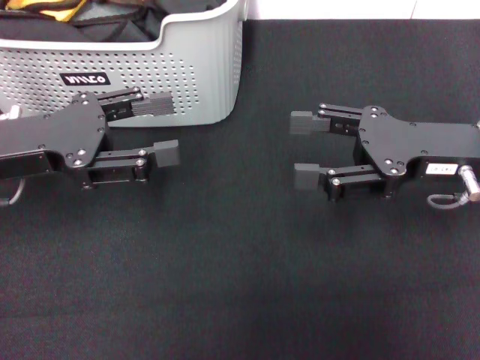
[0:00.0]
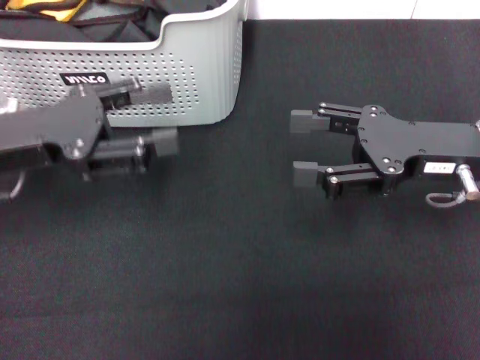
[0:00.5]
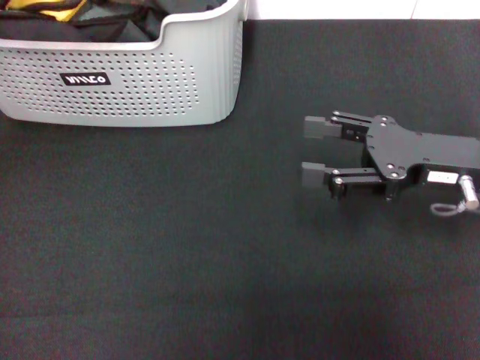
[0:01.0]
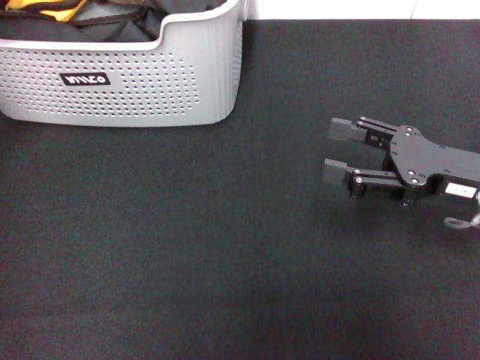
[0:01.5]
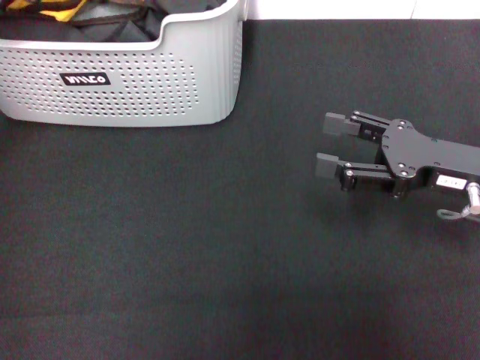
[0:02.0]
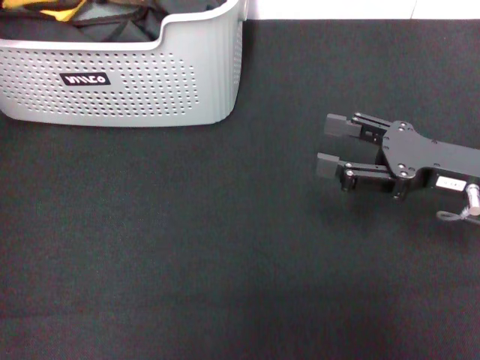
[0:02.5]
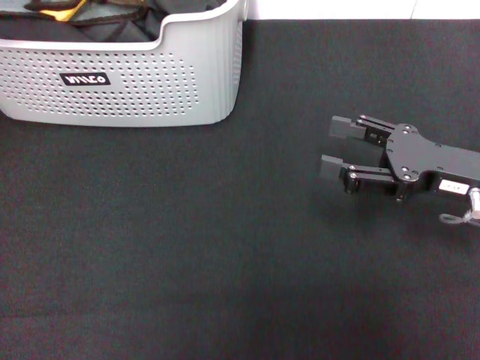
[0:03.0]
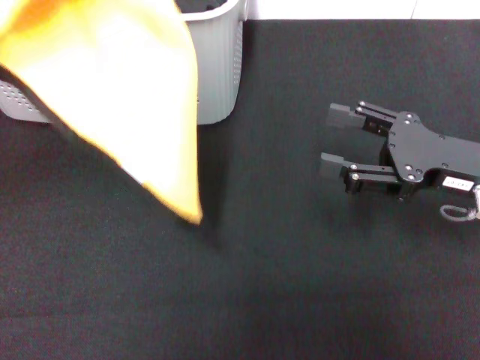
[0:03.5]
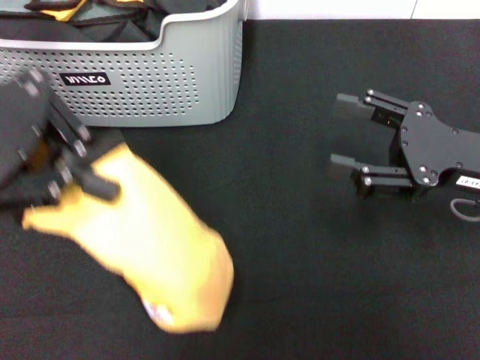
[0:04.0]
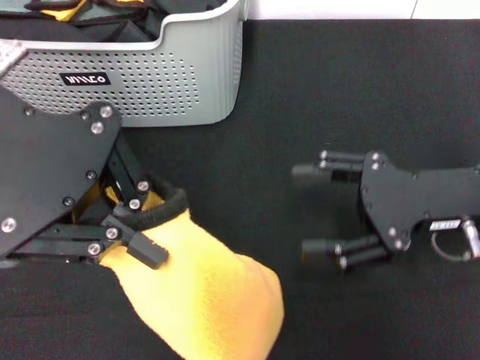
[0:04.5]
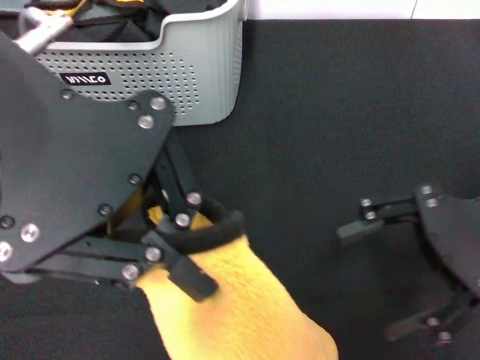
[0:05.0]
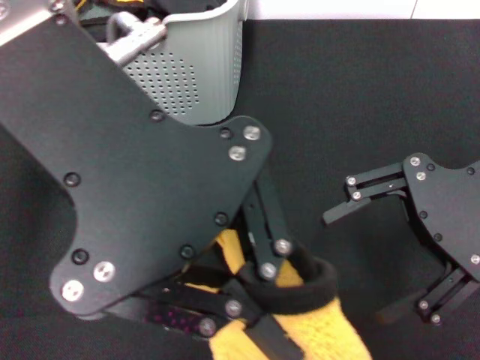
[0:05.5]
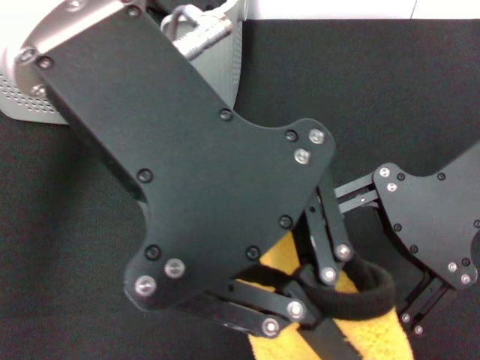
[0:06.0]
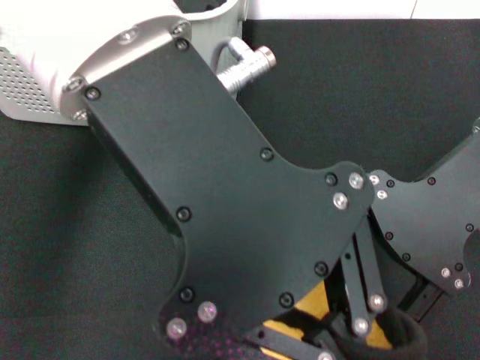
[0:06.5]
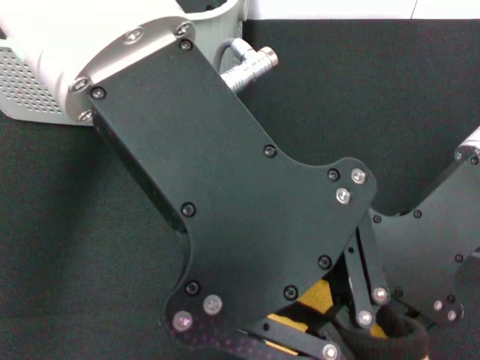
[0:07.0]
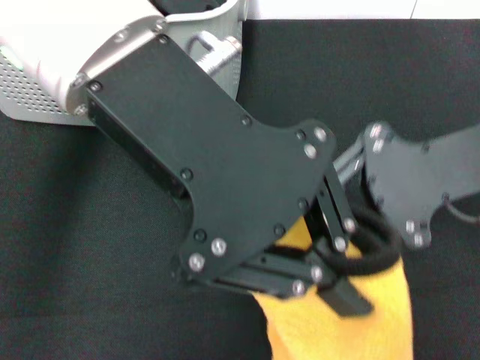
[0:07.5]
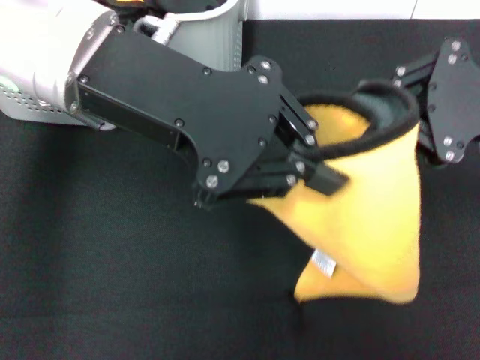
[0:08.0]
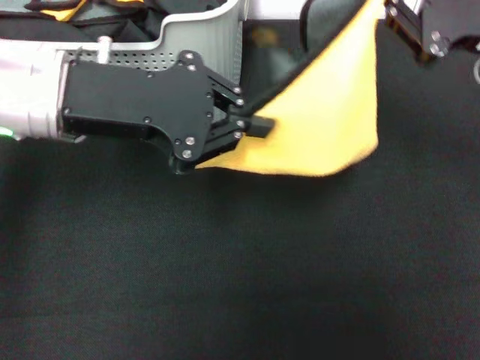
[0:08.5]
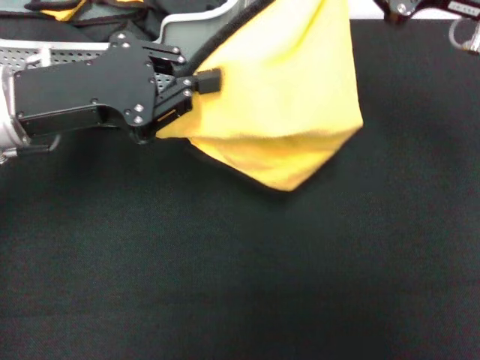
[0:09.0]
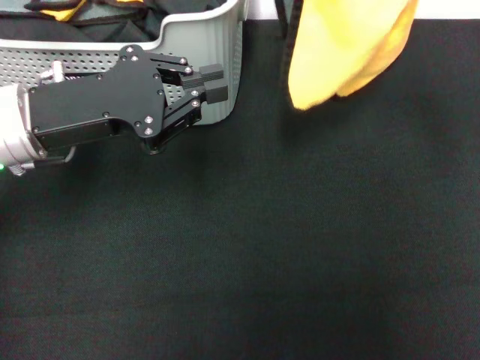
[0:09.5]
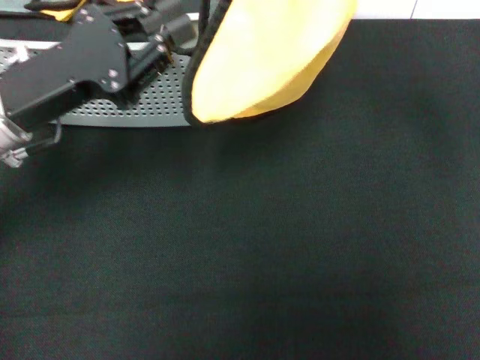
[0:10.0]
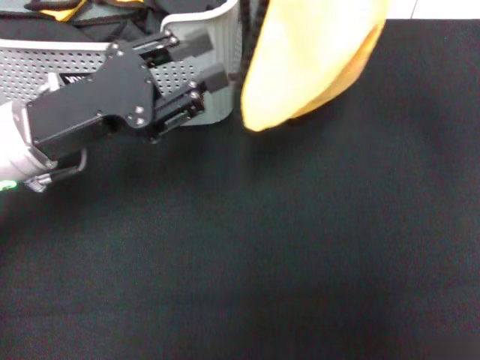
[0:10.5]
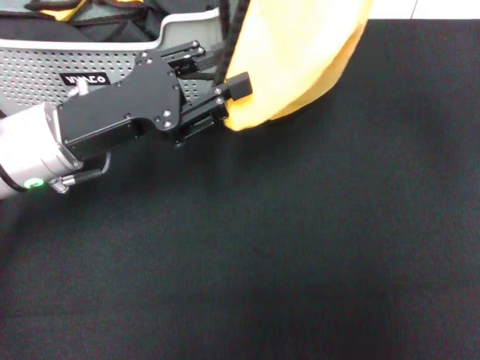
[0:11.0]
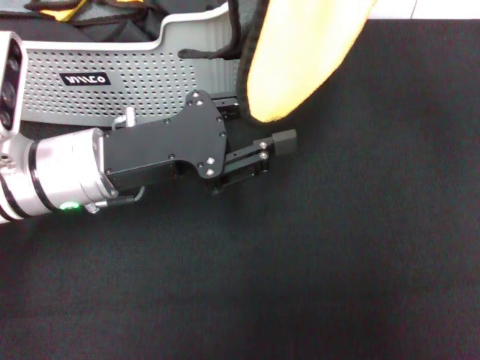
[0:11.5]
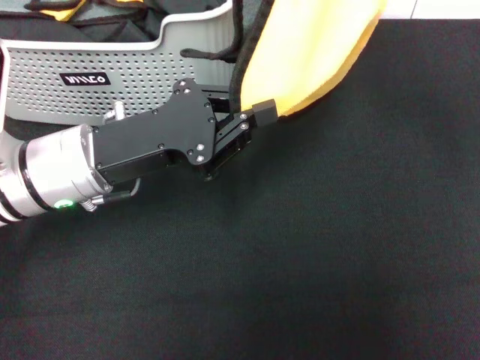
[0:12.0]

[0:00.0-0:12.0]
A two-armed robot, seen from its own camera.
Task of the whole recording: pick up the towel from the storage box and lay it flat on the black tablecloth.
Step, 0:00.0 to 0:02.5: Pick up a towel with the left gripper.
Step, 0:03.0 to 0:07.5: Spread the towel flat with the left gripper.
0:00.0 to 0:02.0: The left gripper is displaced forward and upward by roughly 15 cm.
0:02.0 to 0:04.0: The left gripper travels backward by some 10 cm, and closes.
0:04.0 to 0:06.0: The left gripper heads to the right, covering roughly 15 cm, while the right gripper heads upward, covering about 10 cm.
0:06.0 to 0:08.0: The left gripper is displaced downward by approximately 5 cm. The right gripper shifts about 5 cm to the right, and closes.
0:08.0 to 0:10.0: The right gripper goes roughly 10 cm upward and forward, while the left gripper goes approximately 15 cm downward and to the left.
0:10.0 to 0:12.0: The left gripper goes roughly 5 cm to the right.

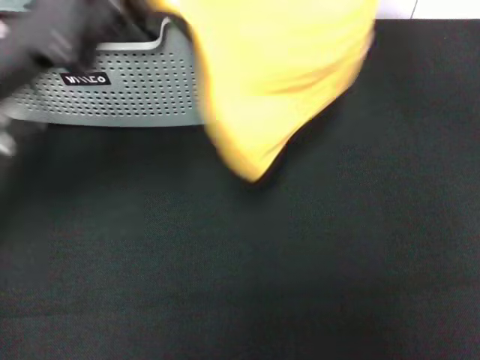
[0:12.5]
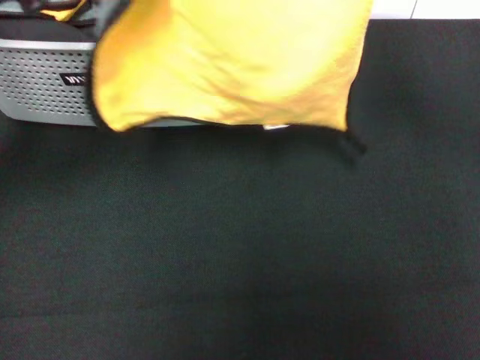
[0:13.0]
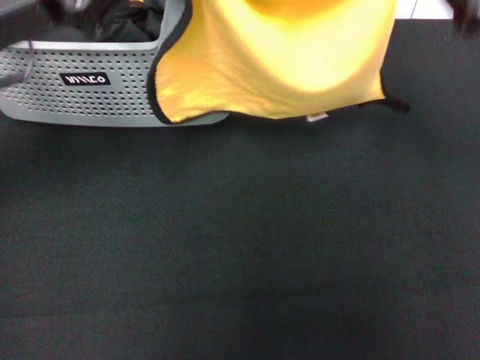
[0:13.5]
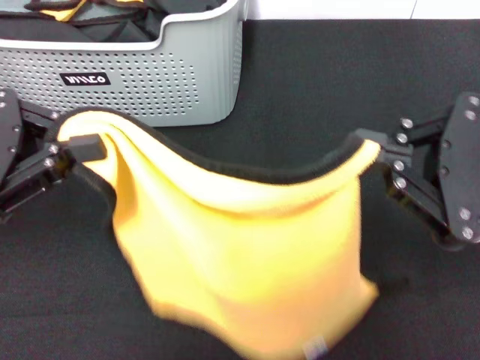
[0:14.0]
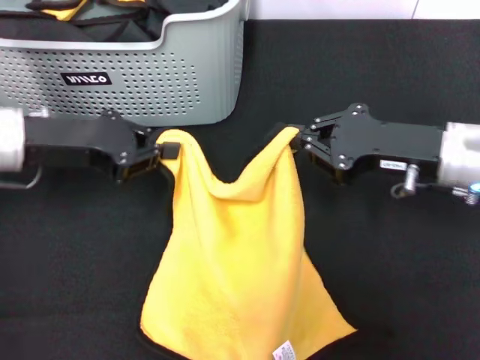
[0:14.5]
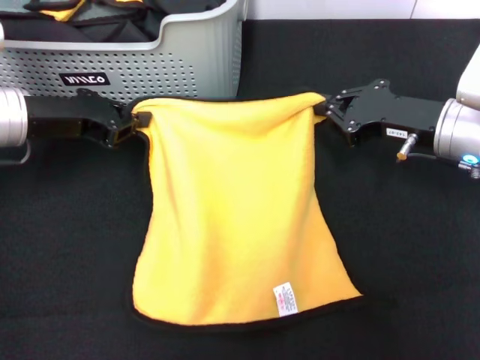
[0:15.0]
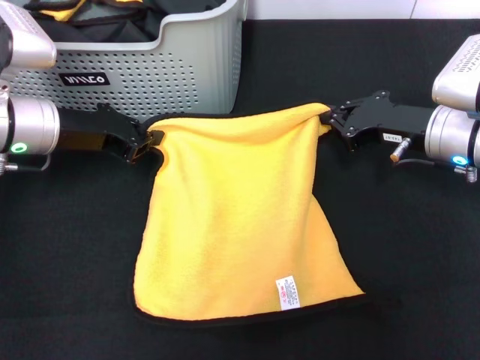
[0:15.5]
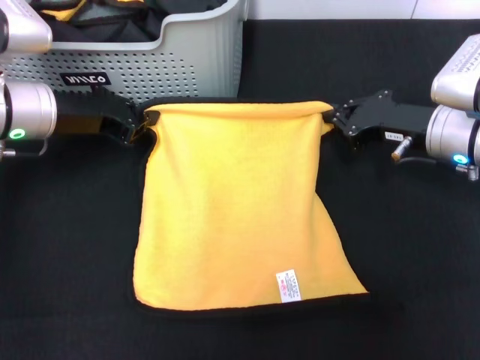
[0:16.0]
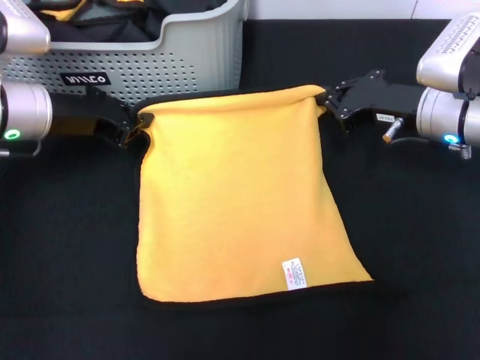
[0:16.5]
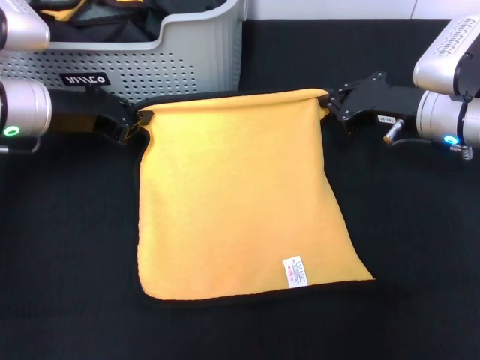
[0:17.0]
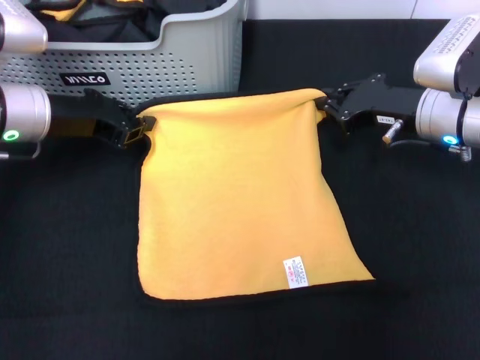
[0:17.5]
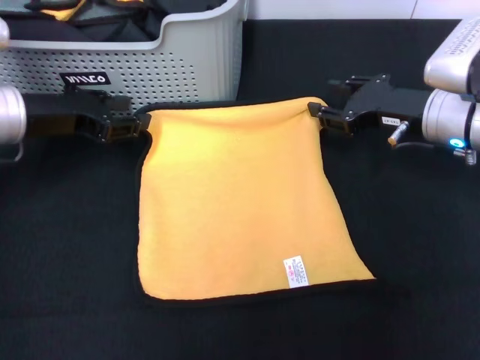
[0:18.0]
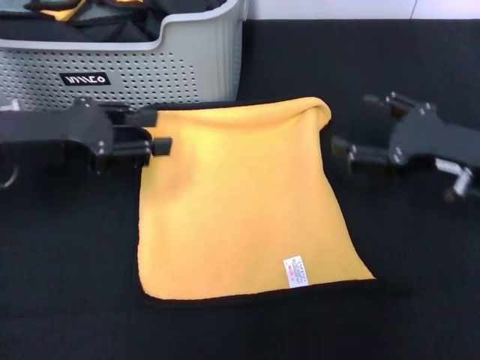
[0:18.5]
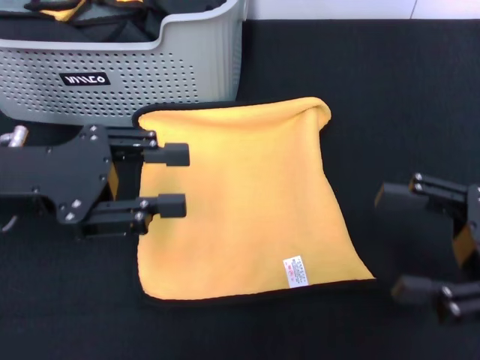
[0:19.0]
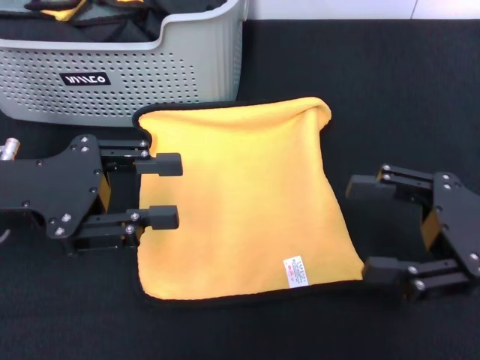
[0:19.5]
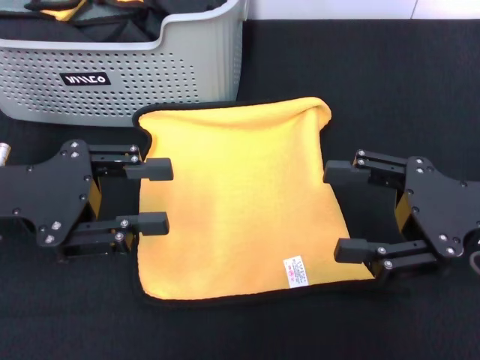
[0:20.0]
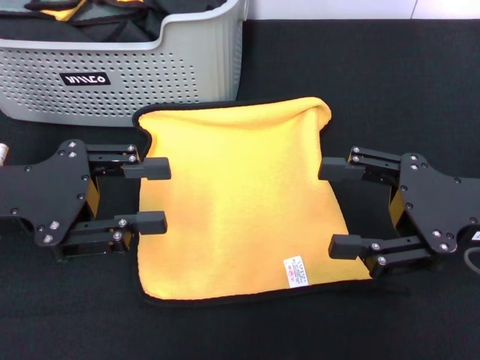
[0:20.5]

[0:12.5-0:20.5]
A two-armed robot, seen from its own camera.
Task of the whole recording: pick up the towel from the storage box and lay it flat on the black tablecloth.
Step, 0:12.5 to 0:18.0: Spread the towel flat with the right gripper.
0:12.5 to 0:14.5: The right gripper heads downward, covering roughly 15 cm, while the left gripper changes place by some 5 cm.
0:14.5 to 0:16.5: The right gripper is displaced forward by approximately 5 cm.
0:16.5 to 0:18.5: The right gripper is displaced backward and to the right by roughly 10 cm, and opens up, while the left gripper travels backward by approximately 5 cm, and opens.
0:18.5 to 0:20.5: The left gripper goes some 5 cm backward.

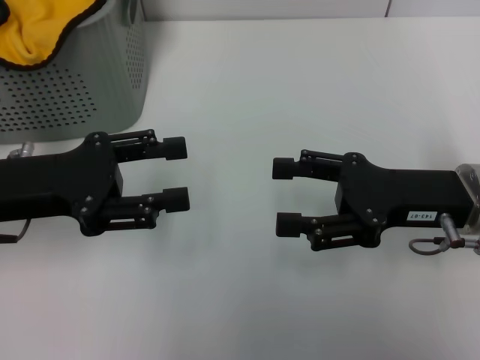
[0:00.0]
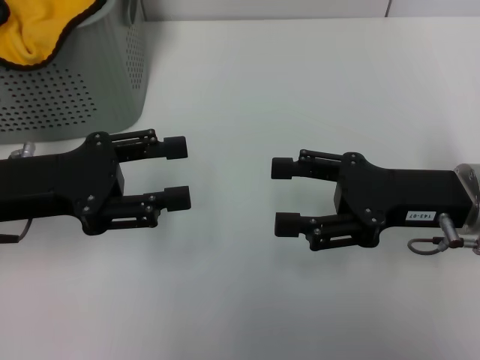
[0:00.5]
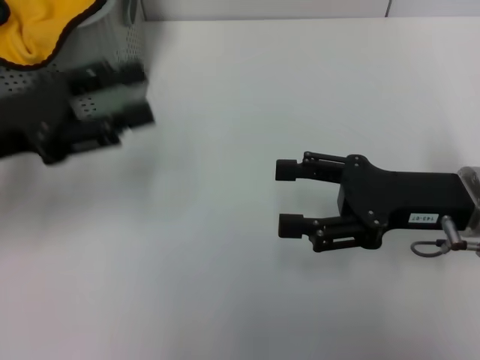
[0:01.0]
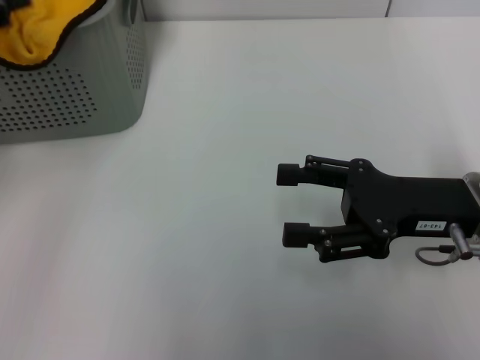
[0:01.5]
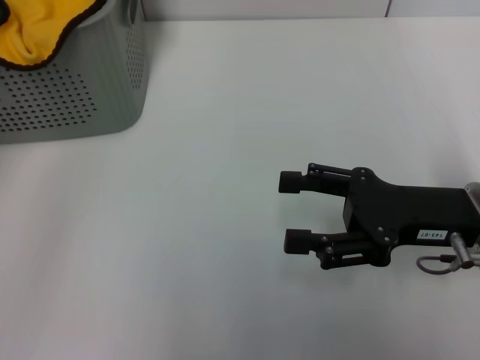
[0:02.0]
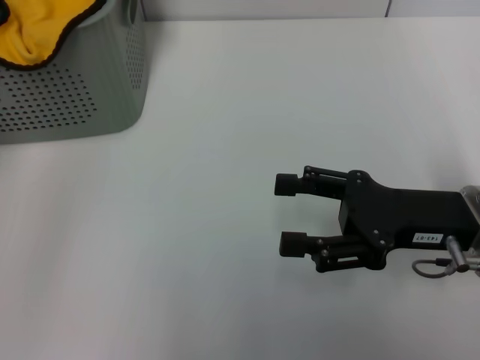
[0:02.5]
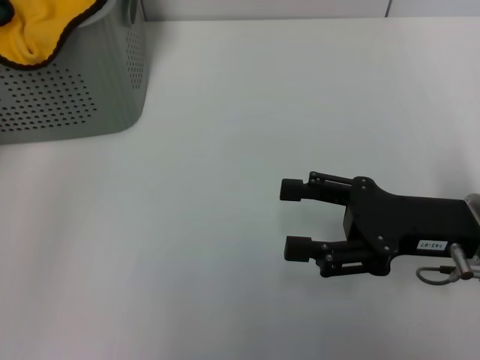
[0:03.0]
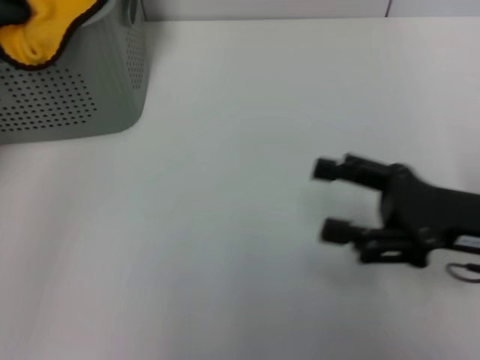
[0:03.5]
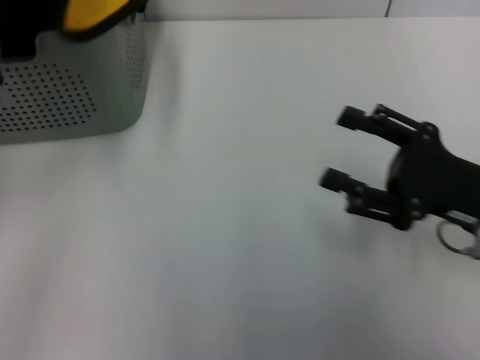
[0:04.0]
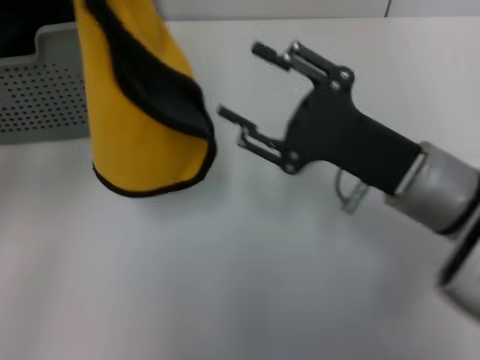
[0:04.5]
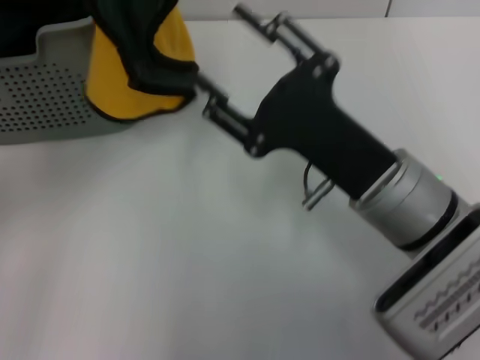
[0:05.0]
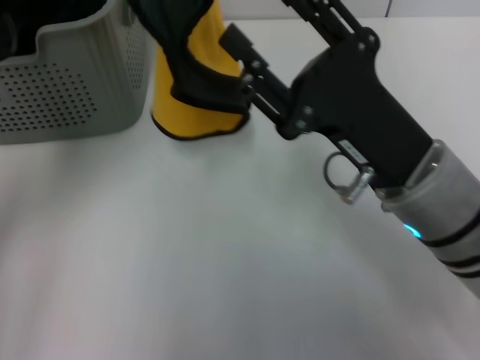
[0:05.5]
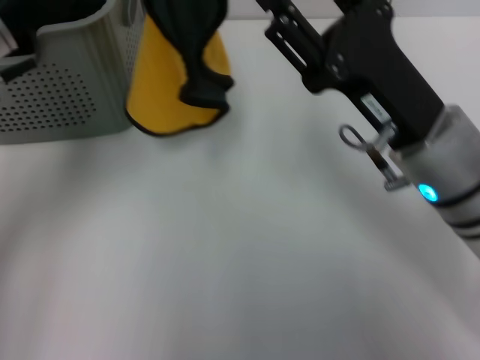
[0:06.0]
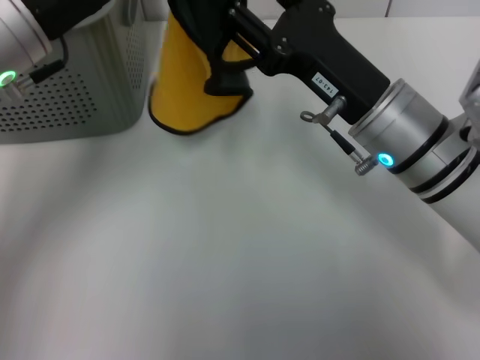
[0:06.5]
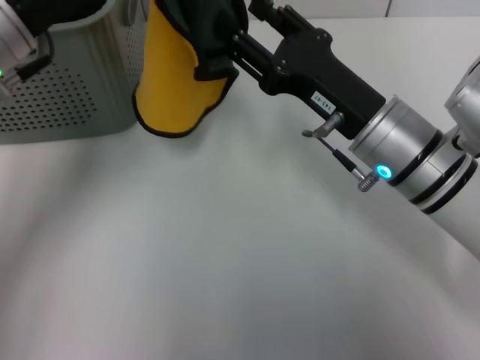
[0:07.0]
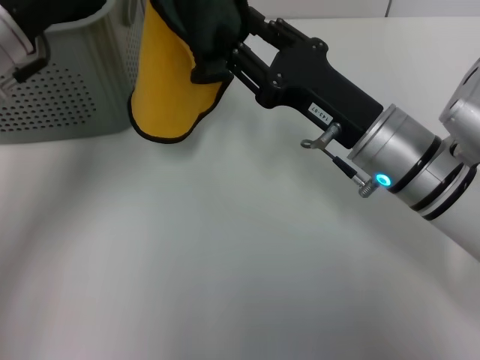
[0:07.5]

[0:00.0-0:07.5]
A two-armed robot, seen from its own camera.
Task of the whole recording: pick up the towel from the storage box and lay it flat on the table.
Step, 0:00.0 to 0:03.5: Pick up a towel with the left gripper.
0:00.0 to 0:02.0: The left gripper moves upward and to the left, approximately 15 cm.
0:02.0 to 0:04.0: The left gripper shifts some 5 cm to the right, and closes.
0:04.0 to 0:05.5: The left gripper goes some 10 cm to the right and forward. Meanwhile the right gripper goes approximately 10 cm to the left.
0:05.5 to 0:07.5: The right gripper shifts some 5 cm forward.
